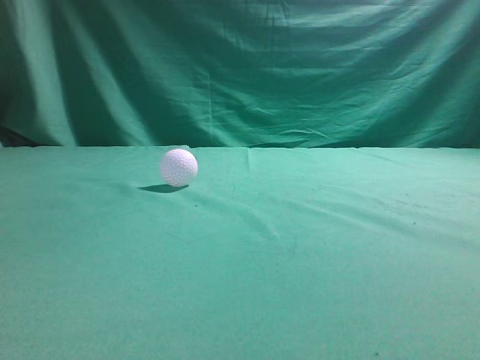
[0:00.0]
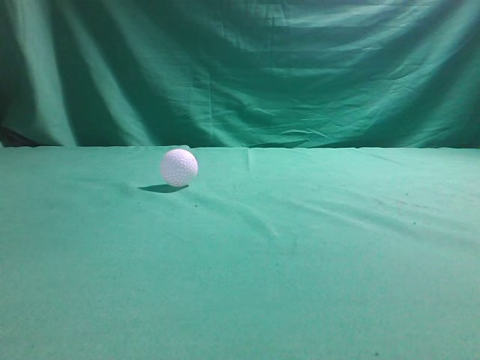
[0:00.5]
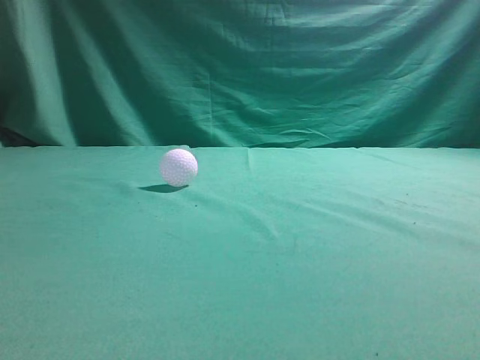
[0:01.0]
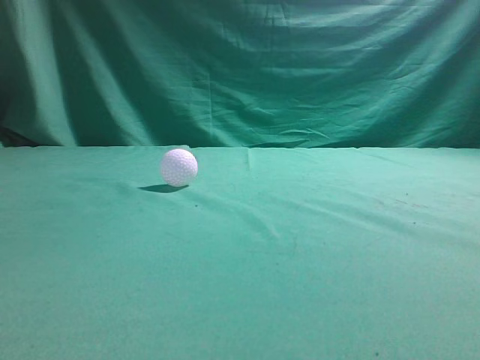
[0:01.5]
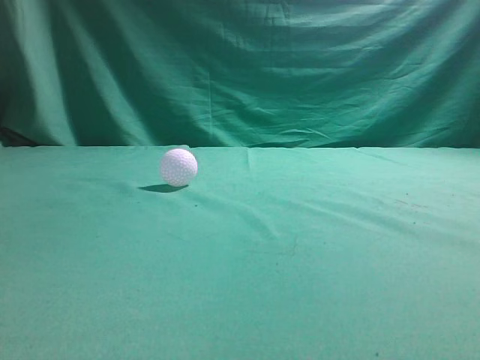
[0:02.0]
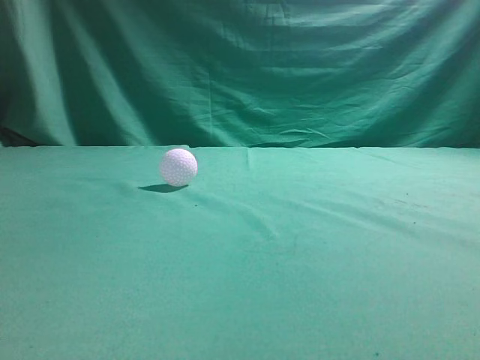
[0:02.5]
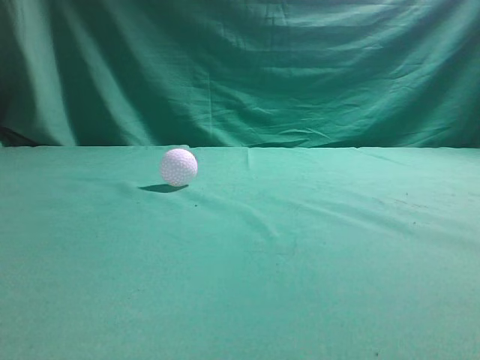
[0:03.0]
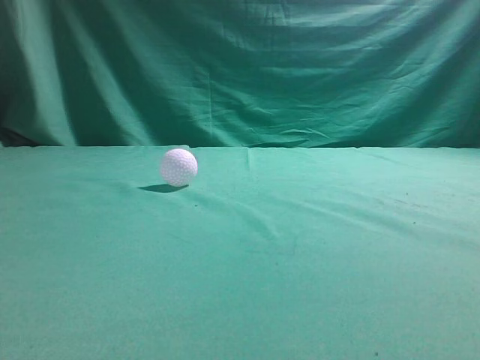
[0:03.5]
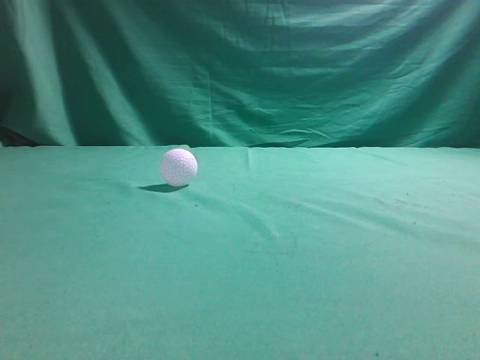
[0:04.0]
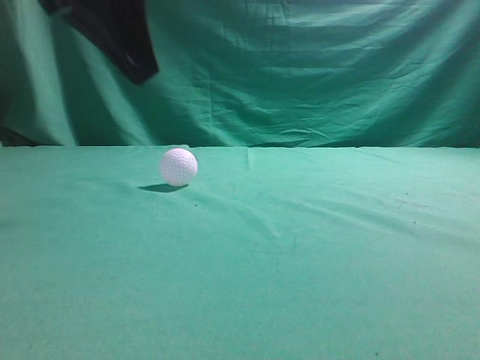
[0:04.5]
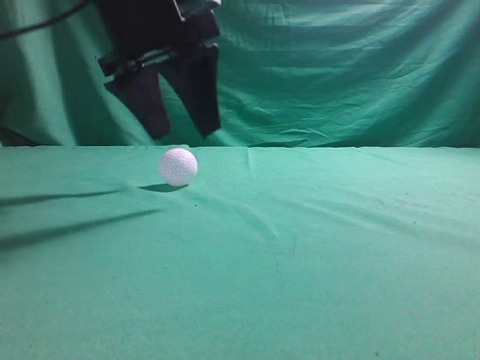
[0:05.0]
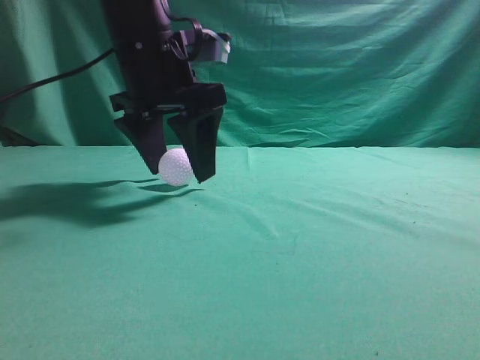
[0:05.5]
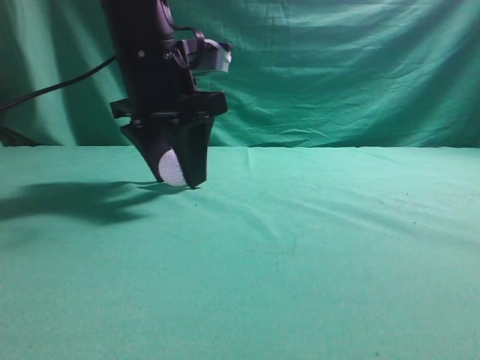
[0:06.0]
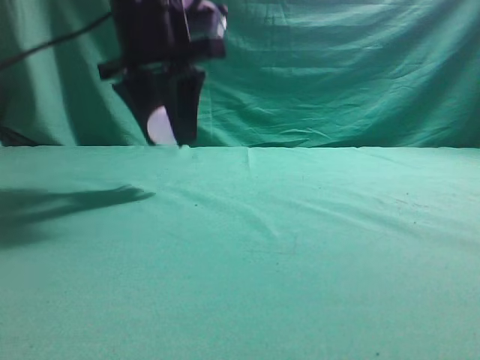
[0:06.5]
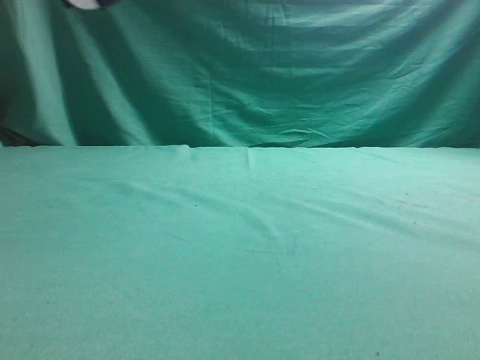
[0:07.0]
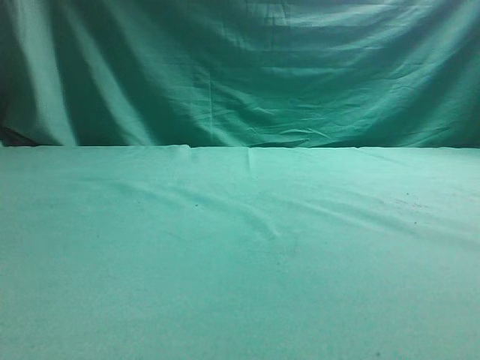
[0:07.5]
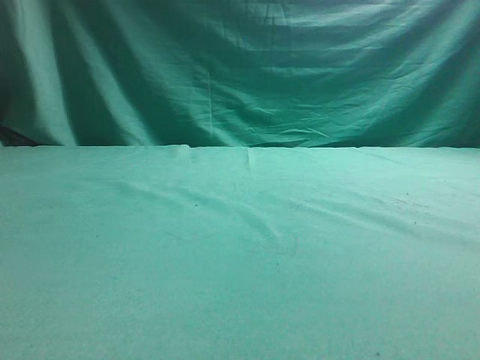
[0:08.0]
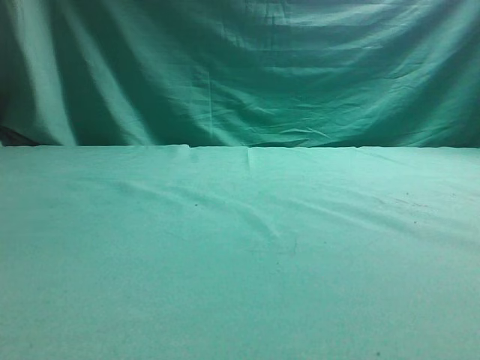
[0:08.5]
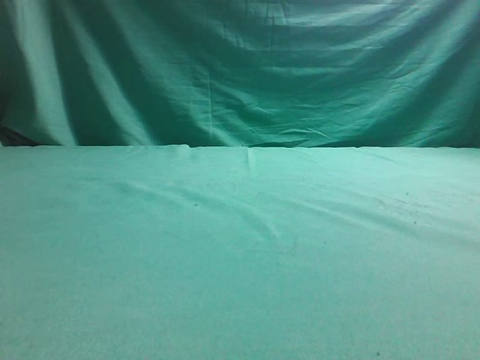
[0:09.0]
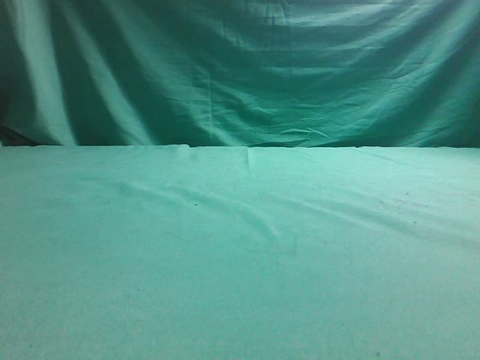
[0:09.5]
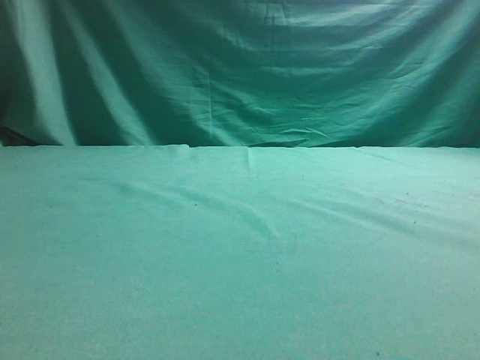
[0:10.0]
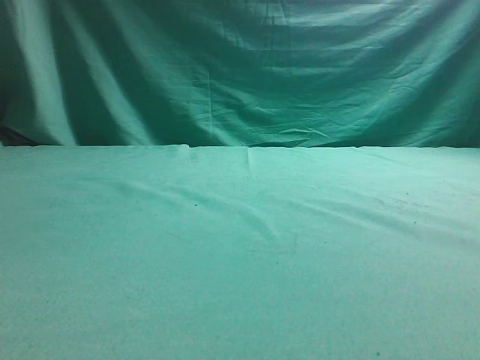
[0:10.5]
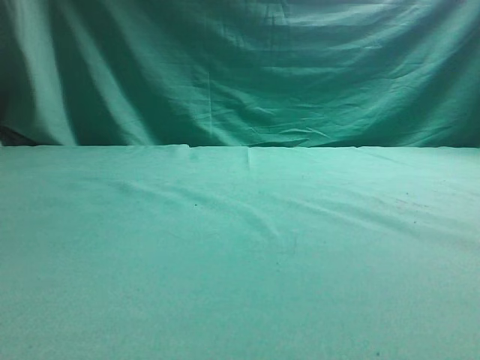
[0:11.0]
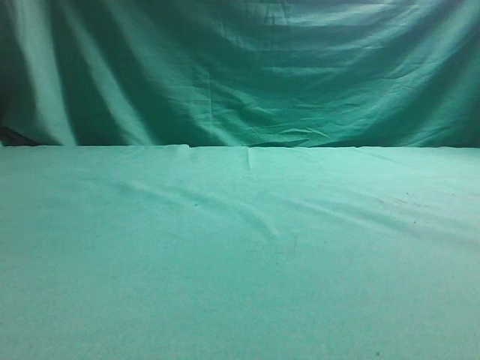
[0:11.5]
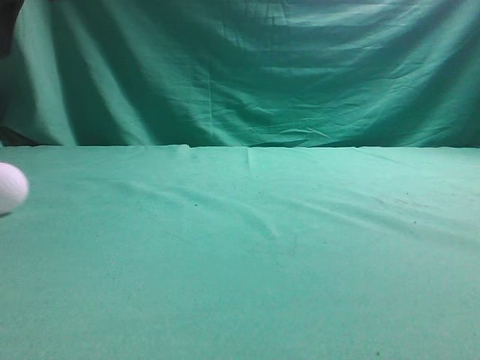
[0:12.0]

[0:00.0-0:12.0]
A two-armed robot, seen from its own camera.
Task of the whole recording: pick up the ball and place it on the plate, then pick up the ball from the plate and put it in the center of the table.
Step, 0:00.0 to 0:06.0: Grab the spherical object with your left arm.
Step, 0:06.5 to 0:11.0: Place the sphere on the white object.
0:04.0 to 0:06.0: The left gripper travels forward, to the right and downward by some 25 cm, and opens.
0:06.0 to 0:08.0: The left gripper moves to the left, backward and upward, some 30 cm; the right gripper moves upward, about 5 cm.
0:10.0 to 0:12.0: The left gripper moves upward and to the right, some 10 cm, and closes its fingers.

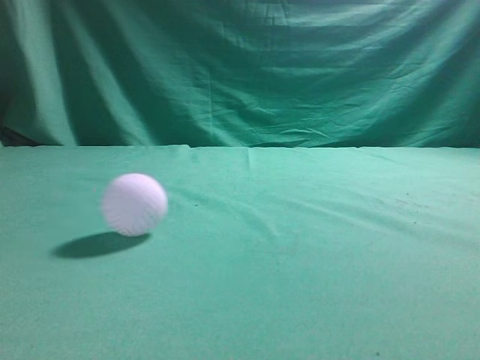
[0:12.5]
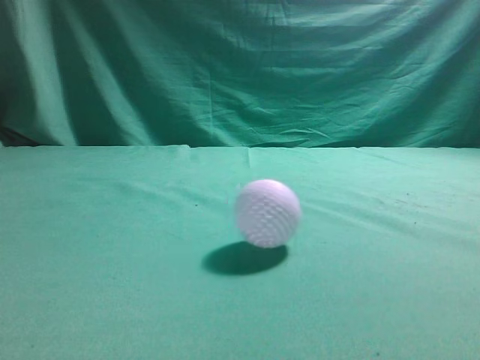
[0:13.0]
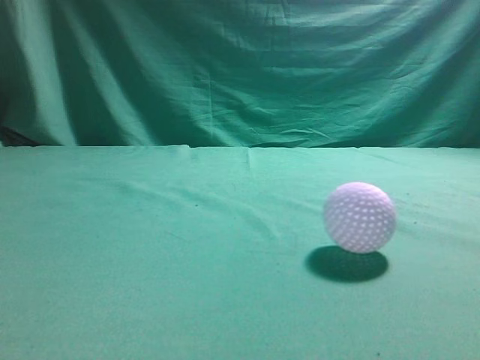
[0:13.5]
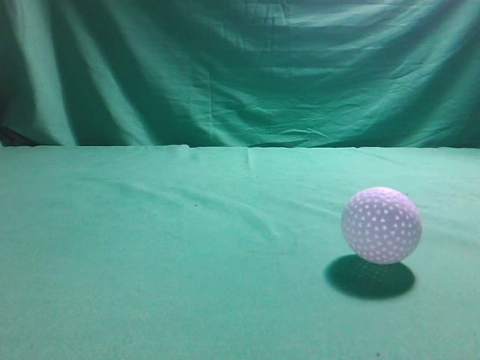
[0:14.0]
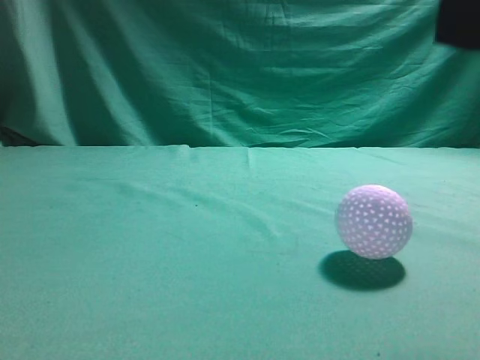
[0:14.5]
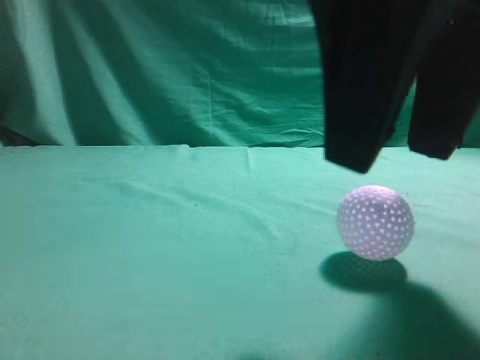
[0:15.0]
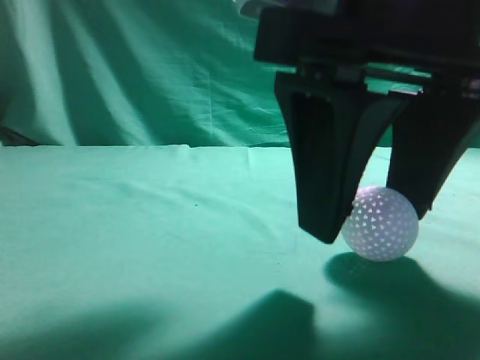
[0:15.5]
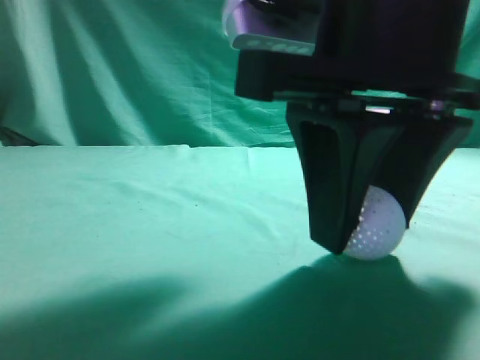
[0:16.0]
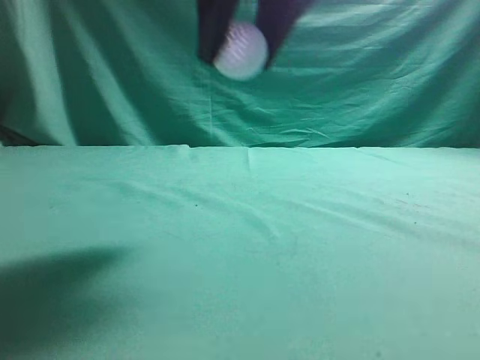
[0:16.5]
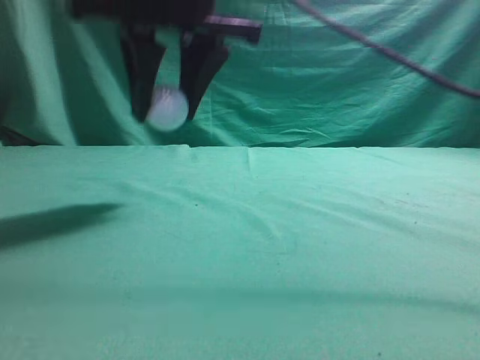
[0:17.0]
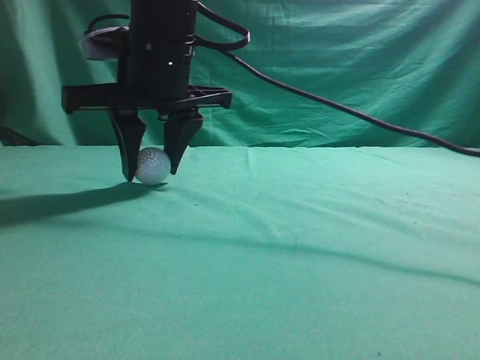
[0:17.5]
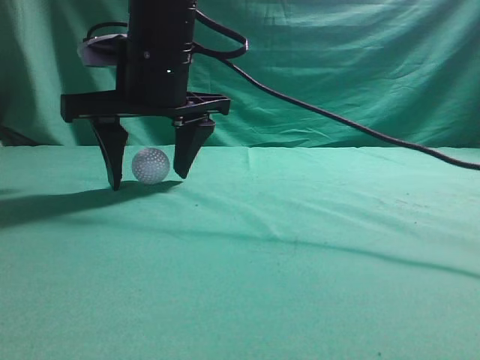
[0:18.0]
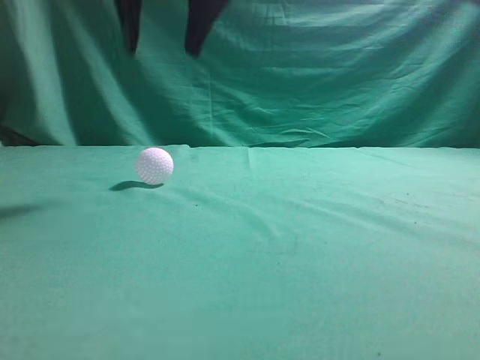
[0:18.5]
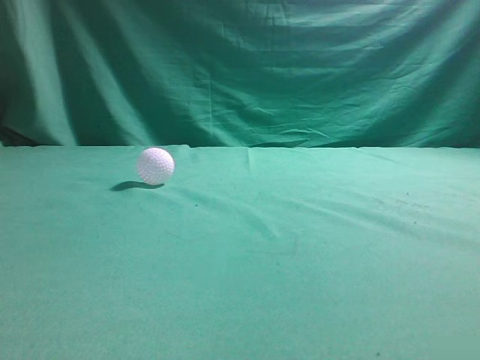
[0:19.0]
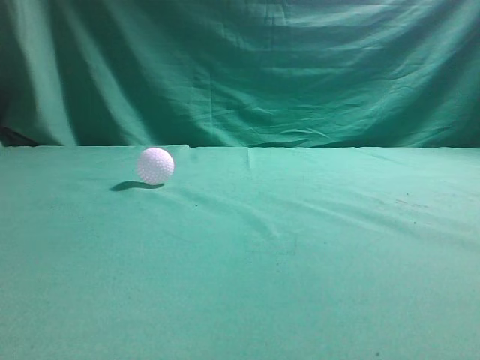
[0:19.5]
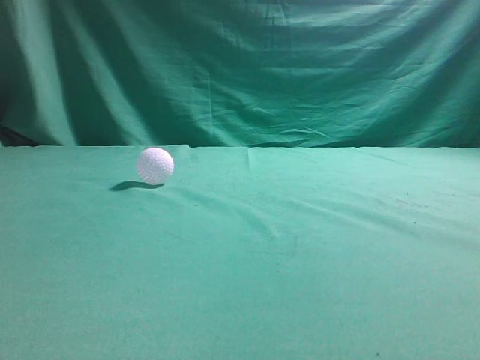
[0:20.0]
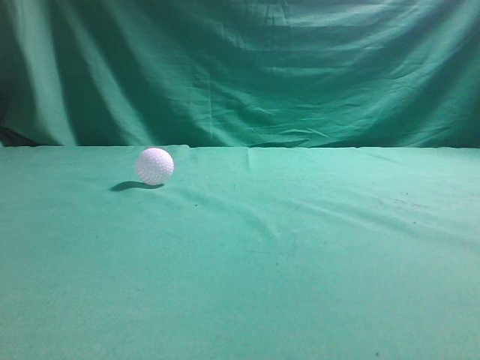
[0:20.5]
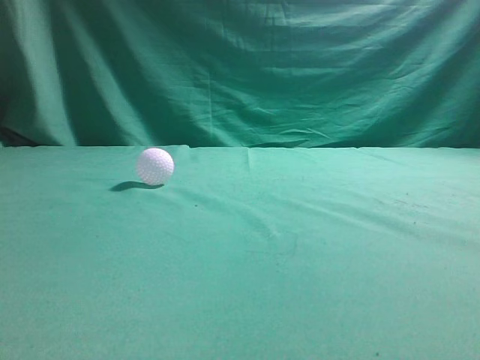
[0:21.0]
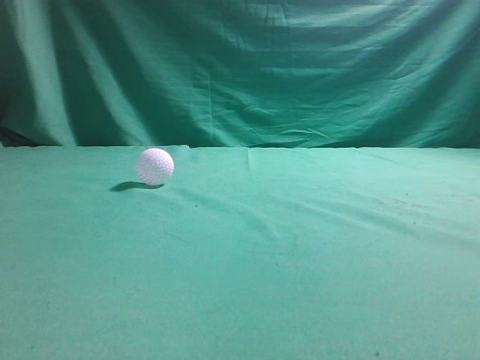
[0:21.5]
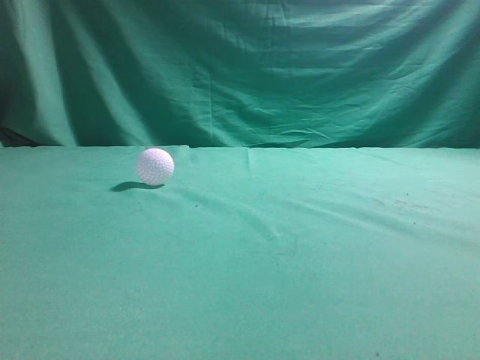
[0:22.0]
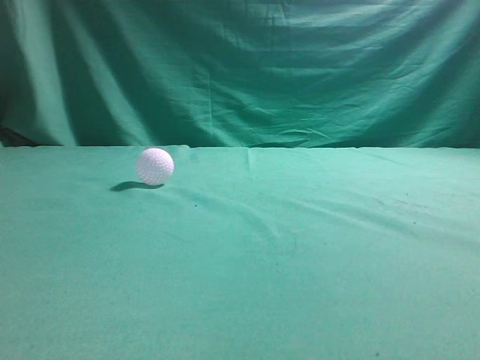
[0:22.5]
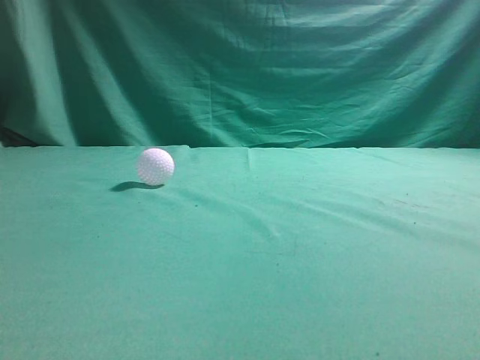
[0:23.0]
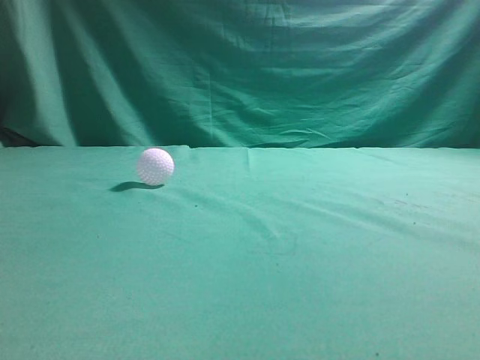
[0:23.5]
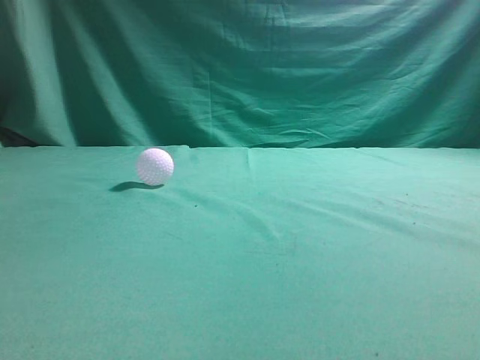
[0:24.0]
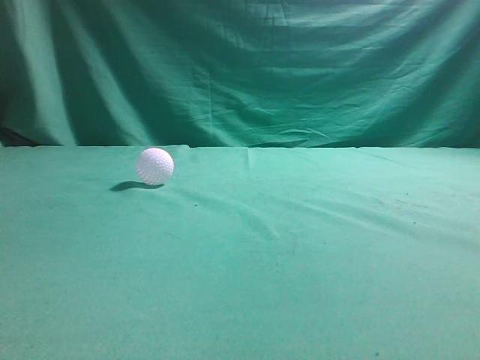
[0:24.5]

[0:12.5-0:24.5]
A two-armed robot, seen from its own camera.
Task of the whole recording: pick up the ball and place it on the plate, then pick up the ball from the plate and put it in the center of the table.
Step, 0:12.5 to 0:16.0: Grab the rolling spherical object.
Step, 0:16.5 to 0:18.0: Put the picked-up object on the table.
0:12.5 to 0:14.5: The right gripper goes roughly 10 cm to the left and forward, while the left gripper is displaced backward and downward by about 25 cm.
0:14.5 to 0:16.5: The right gripper is displaced to the left and forward by some 15 cm, and opens its fingers.
0:16.5 to 0:18.5: The right gripper goes roughly 10 cm forward and to the left, and goes downward and returns, approximately 10 cm each way.
0:18.5 to 0:20.5: The right gripper heads to the right, backward and upward, covering approximately 40 cm, and closes up.
